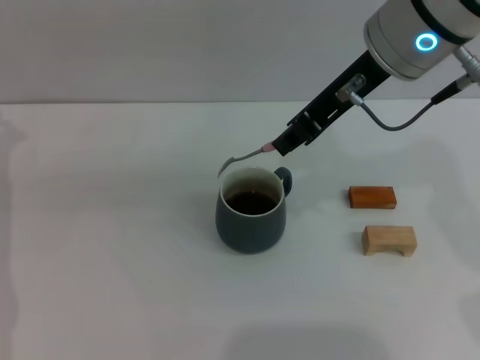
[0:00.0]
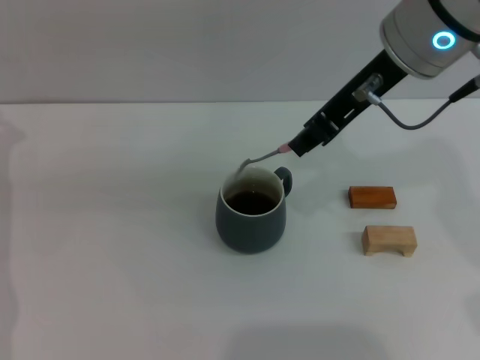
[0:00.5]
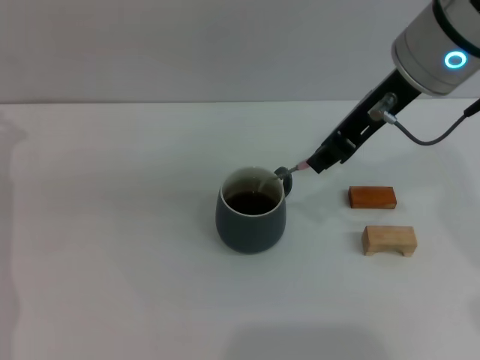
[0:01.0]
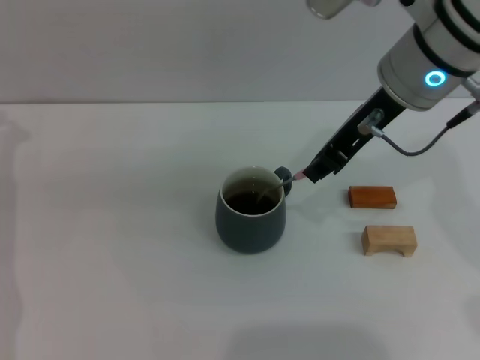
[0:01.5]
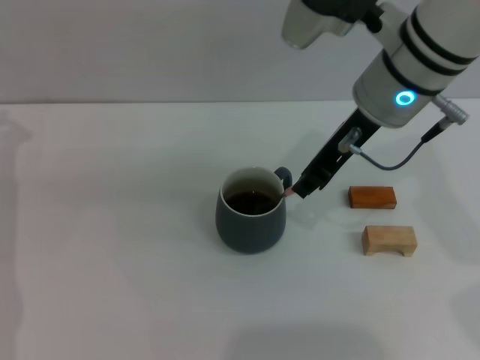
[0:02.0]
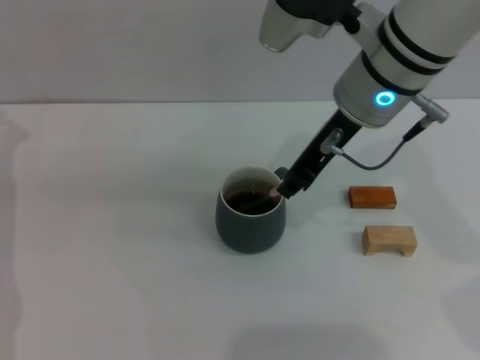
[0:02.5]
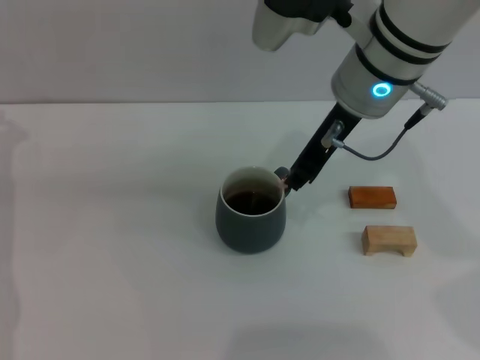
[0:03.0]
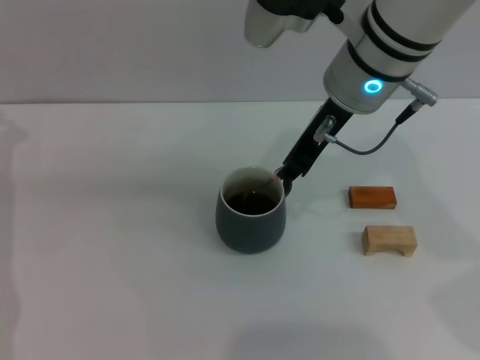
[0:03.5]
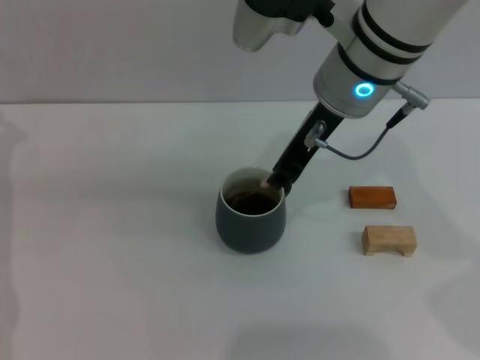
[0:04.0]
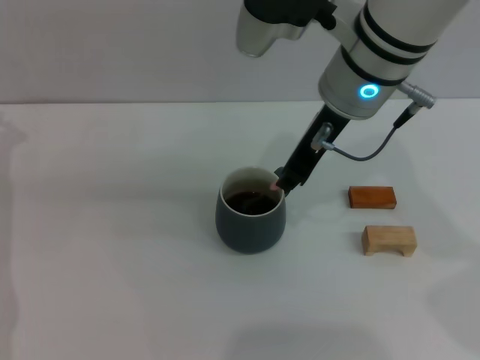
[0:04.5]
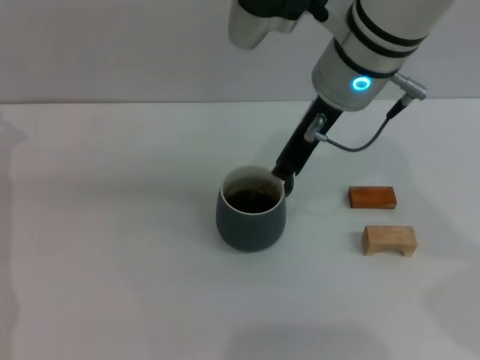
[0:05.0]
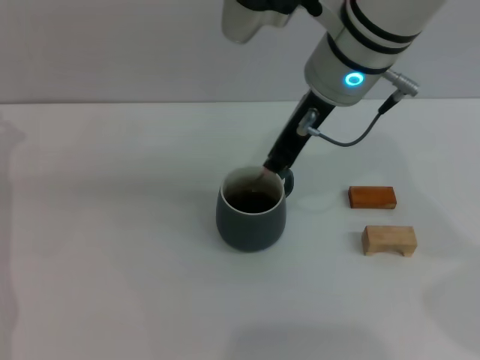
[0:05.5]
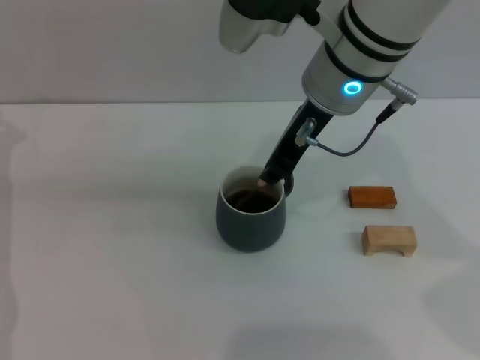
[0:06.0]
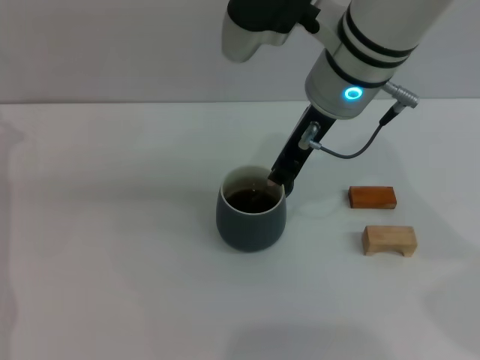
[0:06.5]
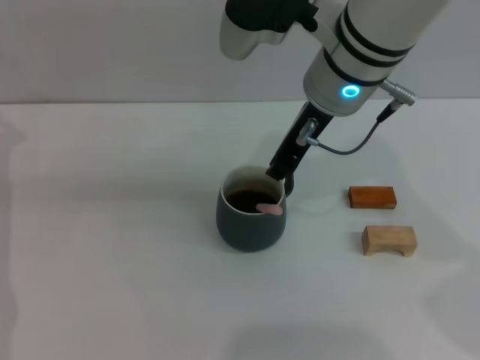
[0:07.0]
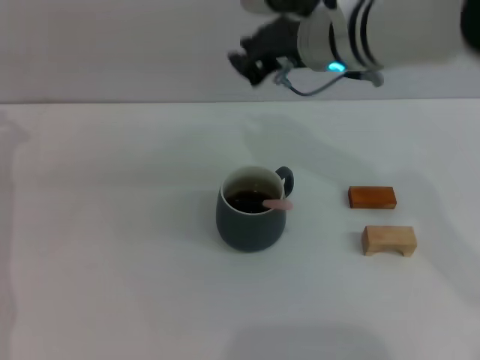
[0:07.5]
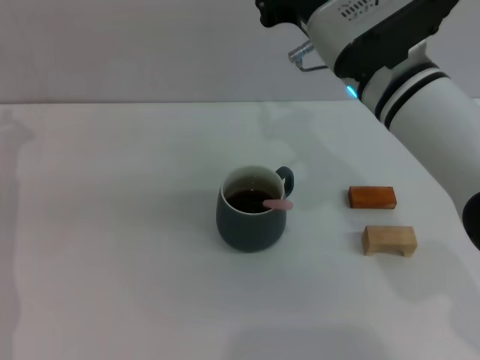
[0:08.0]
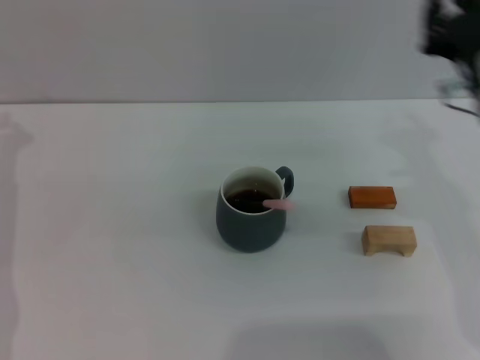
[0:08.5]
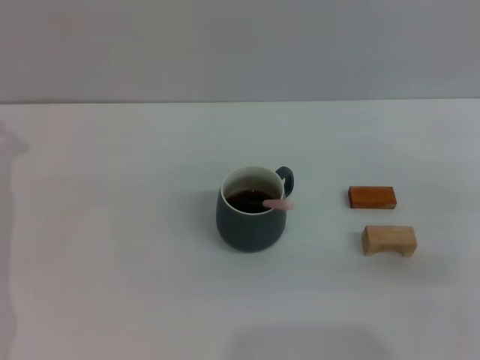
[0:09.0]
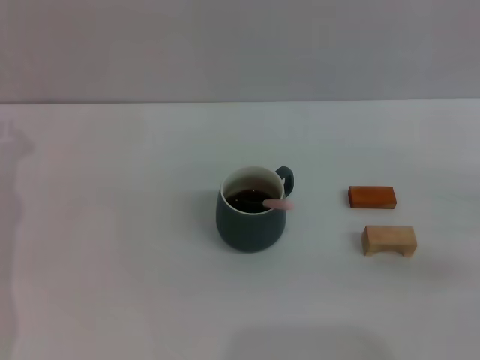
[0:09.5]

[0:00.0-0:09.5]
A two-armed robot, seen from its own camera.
Task of the whole recording: Move the grey cup to the center, lift the pink spoon, stir it three times in the cup, and put the spoon into the cup.
Step, 0:00.0 to 0:07.0: Stir the coffee in the cup with the right gripper.
0:00.0 to 0:02.0: The right gripper heads downward, covering some 5 cm.
0:02.0 to 0:04.0: The grippers move only a little.
0:04.0 to 0:05.5: Both grippers stay put.
0:07.5 to 0:09.5: The right gripper travels to the right, backward and downward by roughly 30 cm.
